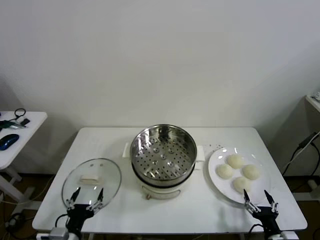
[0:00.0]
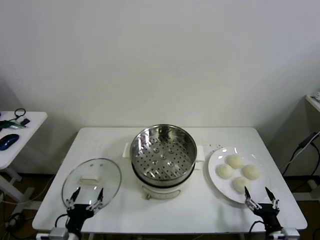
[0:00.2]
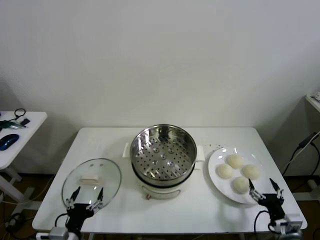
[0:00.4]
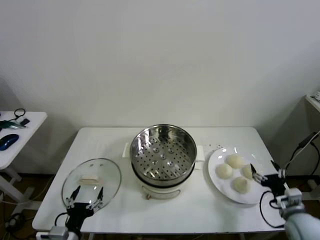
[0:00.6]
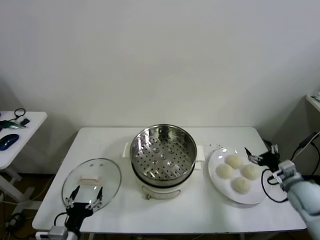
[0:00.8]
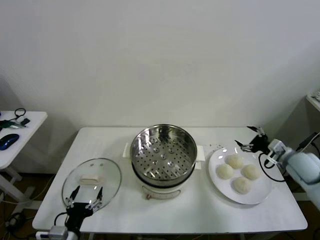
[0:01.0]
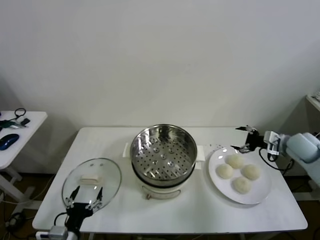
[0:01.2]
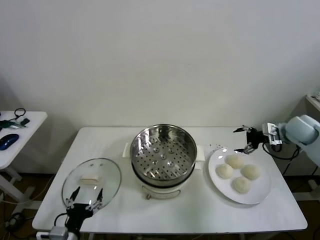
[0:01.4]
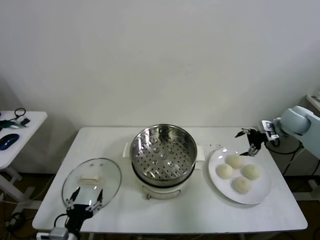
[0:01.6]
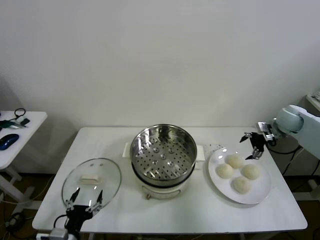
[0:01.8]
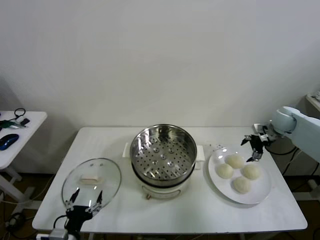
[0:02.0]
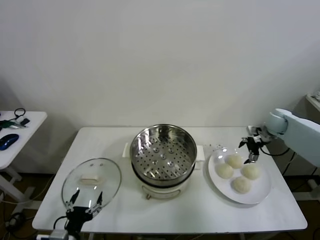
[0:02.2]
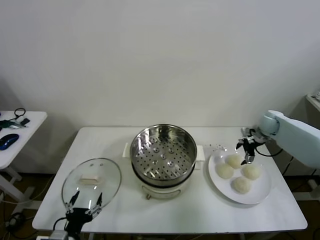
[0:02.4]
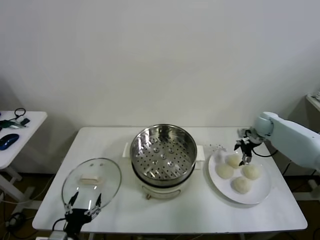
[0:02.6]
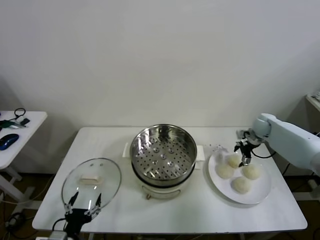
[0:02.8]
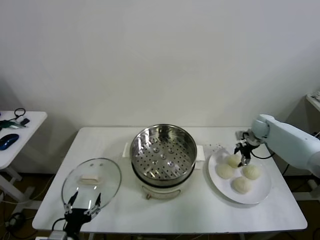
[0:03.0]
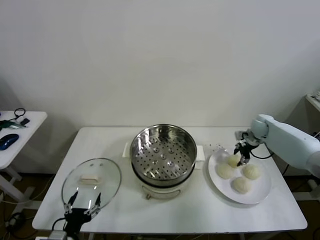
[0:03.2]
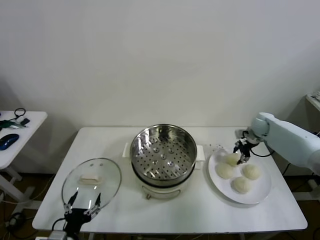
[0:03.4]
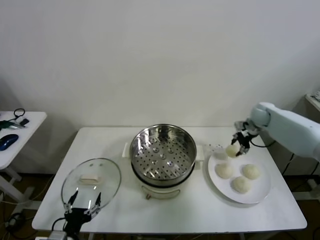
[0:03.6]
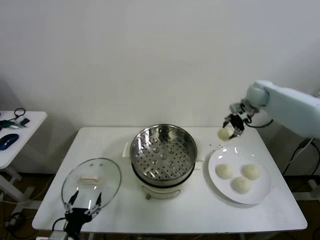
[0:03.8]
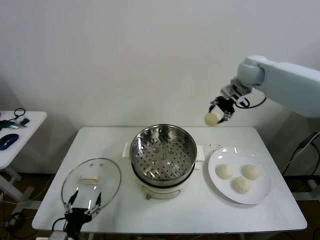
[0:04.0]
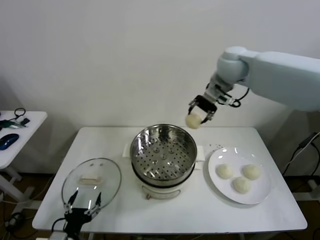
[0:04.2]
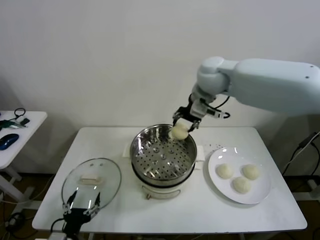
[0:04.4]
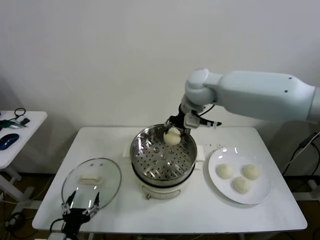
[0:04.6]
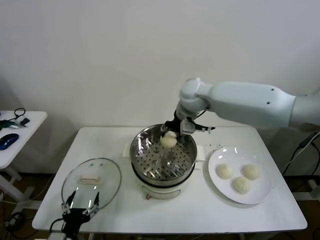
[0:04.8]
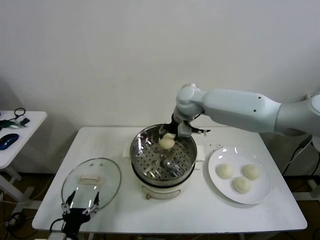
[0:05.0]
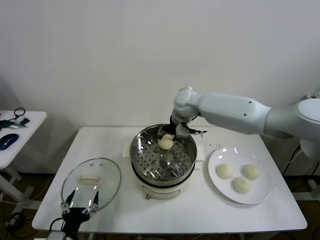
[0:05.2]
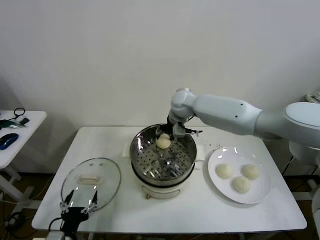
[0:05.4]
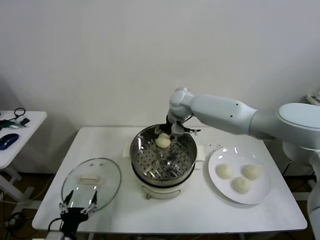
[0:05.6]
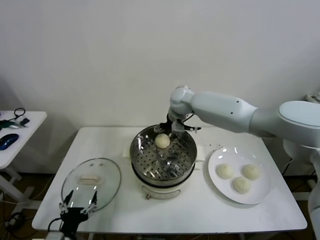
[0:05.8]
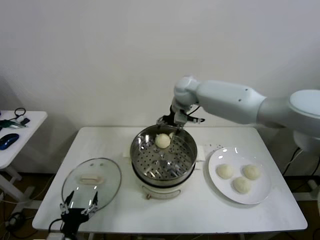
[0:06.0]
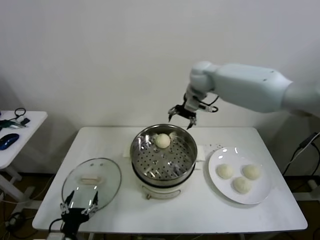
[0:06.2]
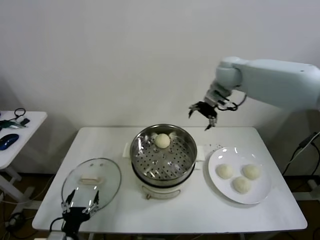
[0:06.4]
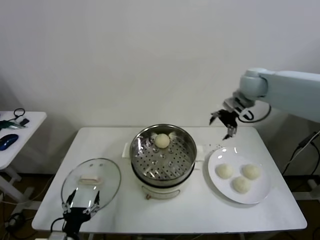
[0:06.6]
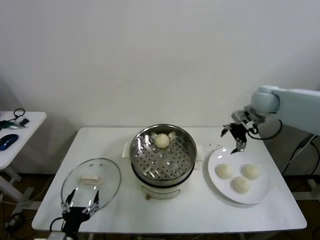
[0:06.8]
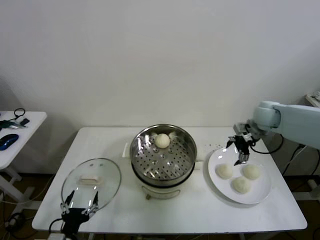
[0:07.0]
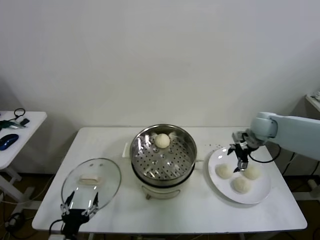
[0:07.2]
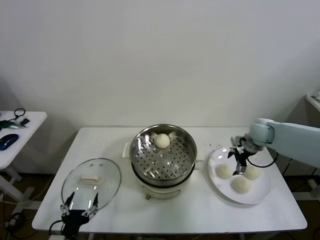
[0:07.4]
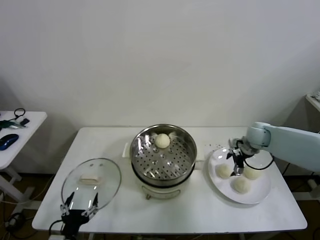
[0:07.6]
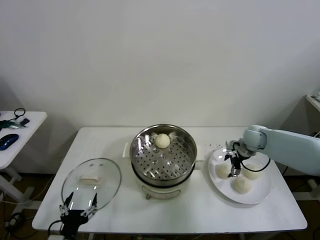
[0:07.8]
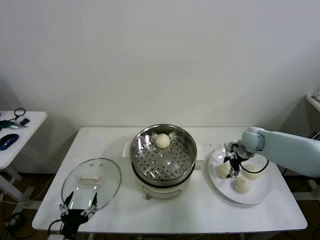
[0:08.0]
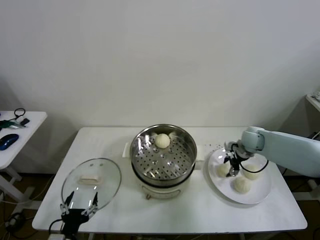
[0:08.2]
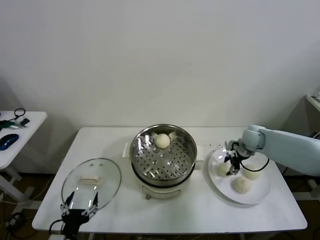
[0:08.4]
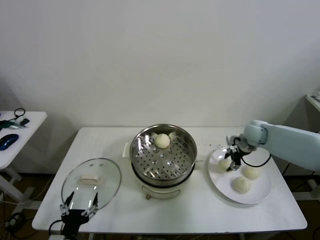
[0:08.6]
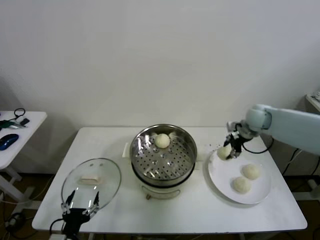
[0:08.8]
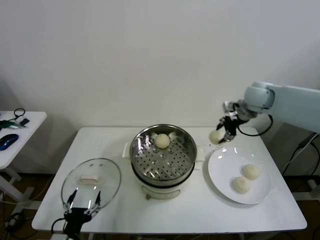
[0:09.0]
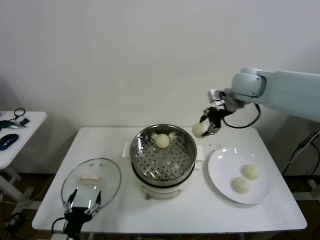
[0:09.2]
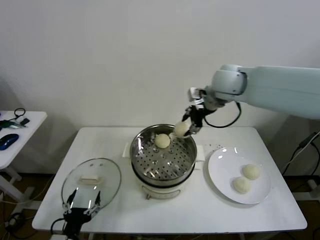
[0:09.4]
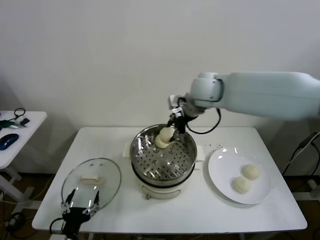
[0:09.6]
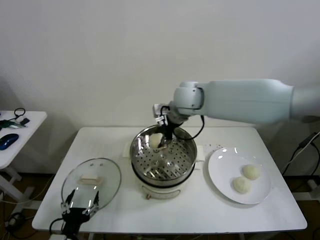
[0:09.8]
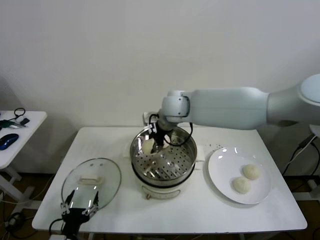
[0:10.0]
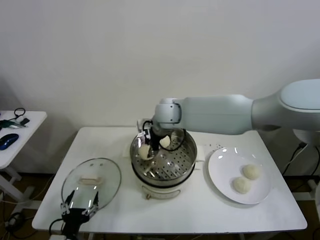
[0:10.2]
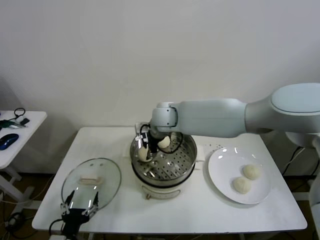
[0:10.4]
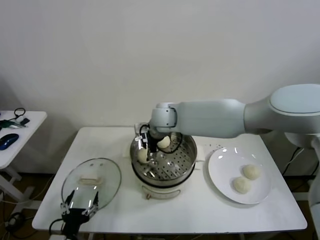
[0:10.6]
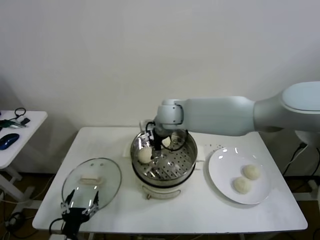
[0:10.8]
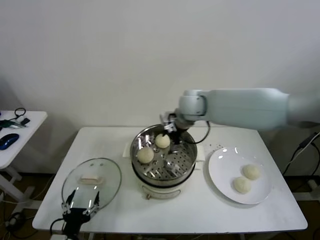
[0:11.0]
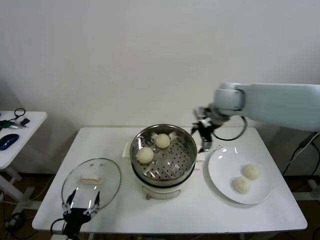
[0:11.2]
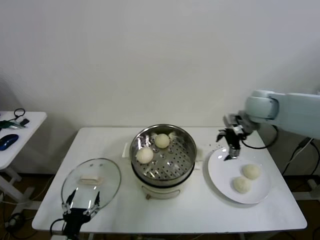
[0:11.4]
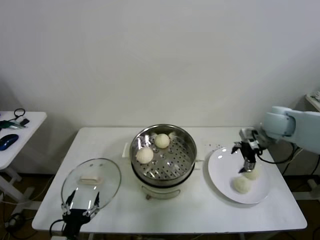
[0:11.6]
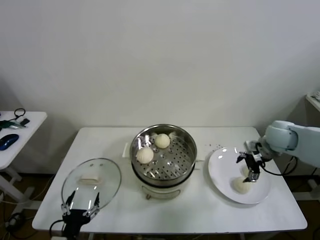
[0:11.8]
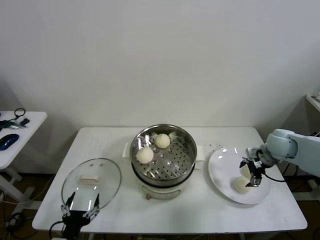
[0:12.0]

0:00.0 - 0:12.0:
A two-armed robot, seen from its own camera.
Step, 0:00.0 - 0:03.2: Grasp the baozi in the plate with right gripper.
Step, 0:03.4 - 0:05.6: Place the baozi on the steamer with right gripper.
Step, 0:05.8 - 0:08.2: Grasp the baozi in the plate with right gripper.
Step, 0:08.4 - 0:10.6: Place the baozi on the steamer with right gripper.
0:01.6 - 0:03.0: The right gripper moves downward and forward, about 10 cm, and closes.
0:03.0 - 0:04.4: The right gripper is displaced to the left and upward by approximately 40 cm.
0:04.4 - 0:06.0: The right gripper travels downward and forward by about 10 cm, and opens its fingers.
0:06.0 - 0:07.6: The right gripper is displaced to the right and downward by roughly 30 cm.
0:07.6 - 0:09.0: The right gripper moves upward, about 15 cm, and closes up.
0:09.0 - 0:10.4: The right gripper moves to the left, roughly 30 cm.
0:10.4 - 0:12.0: The right gripper moves to the right, about 40 cm, and opens up.

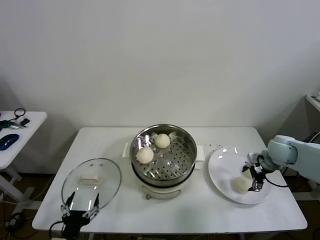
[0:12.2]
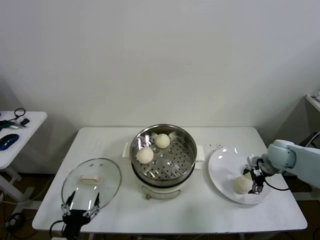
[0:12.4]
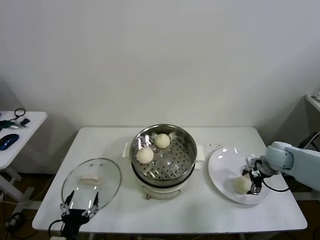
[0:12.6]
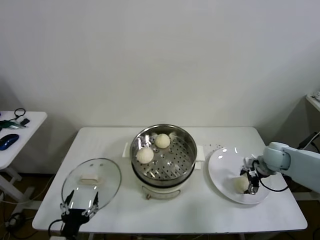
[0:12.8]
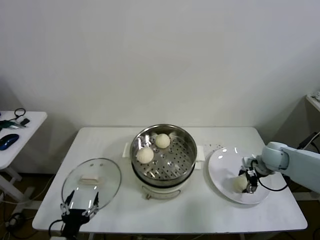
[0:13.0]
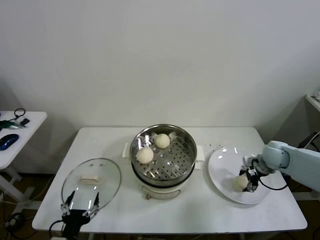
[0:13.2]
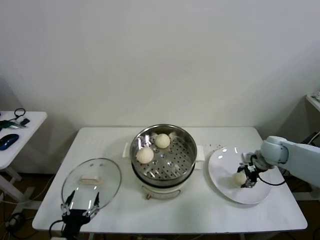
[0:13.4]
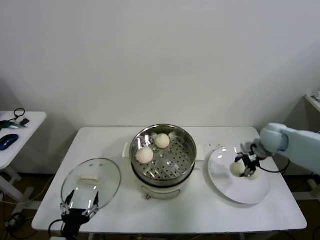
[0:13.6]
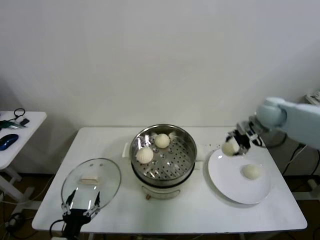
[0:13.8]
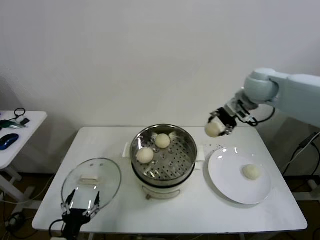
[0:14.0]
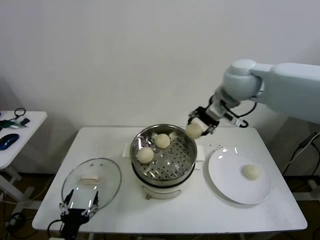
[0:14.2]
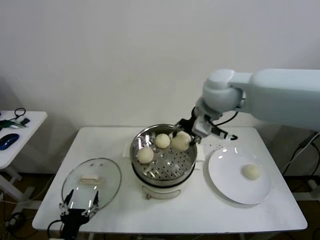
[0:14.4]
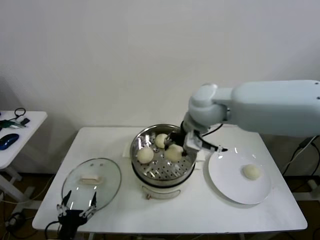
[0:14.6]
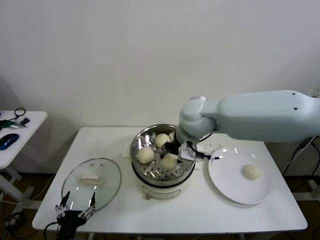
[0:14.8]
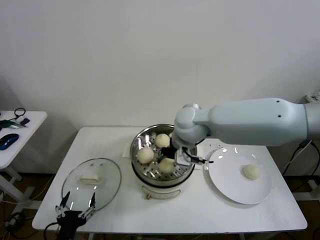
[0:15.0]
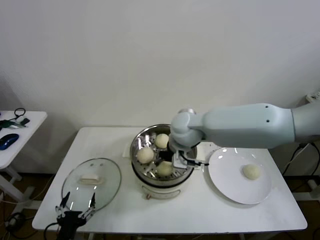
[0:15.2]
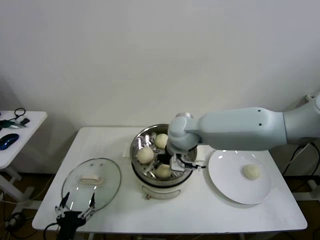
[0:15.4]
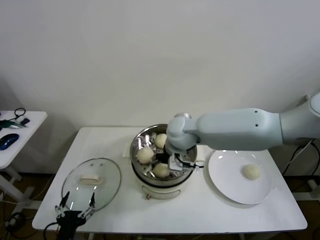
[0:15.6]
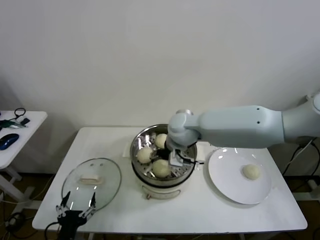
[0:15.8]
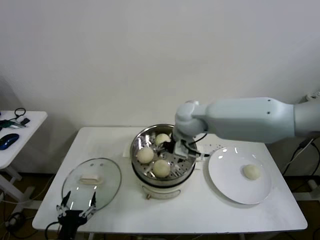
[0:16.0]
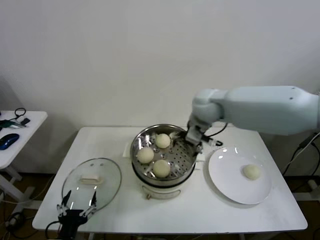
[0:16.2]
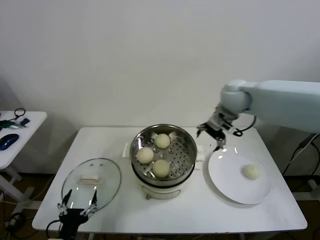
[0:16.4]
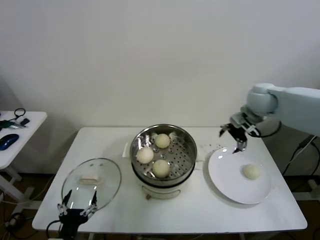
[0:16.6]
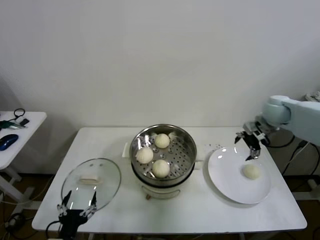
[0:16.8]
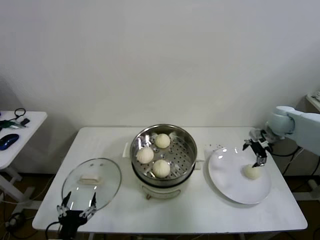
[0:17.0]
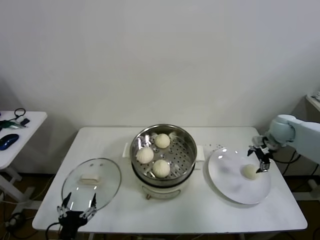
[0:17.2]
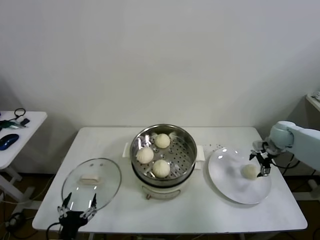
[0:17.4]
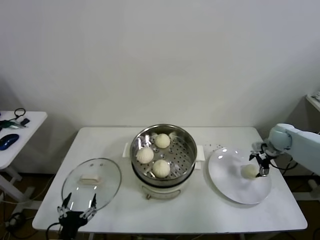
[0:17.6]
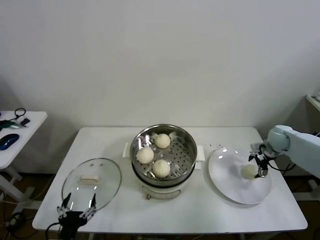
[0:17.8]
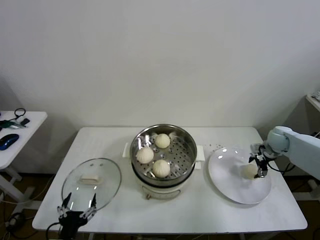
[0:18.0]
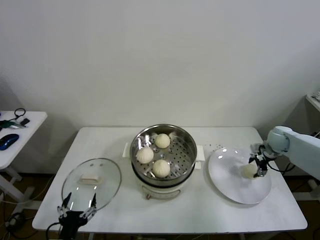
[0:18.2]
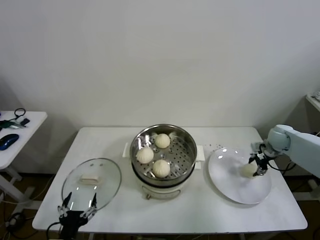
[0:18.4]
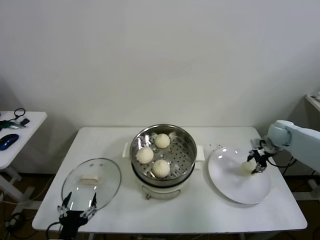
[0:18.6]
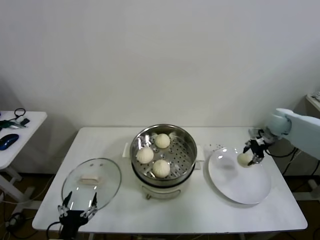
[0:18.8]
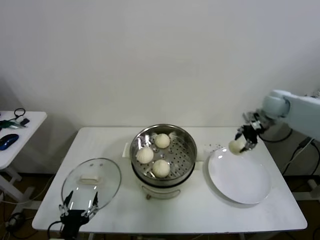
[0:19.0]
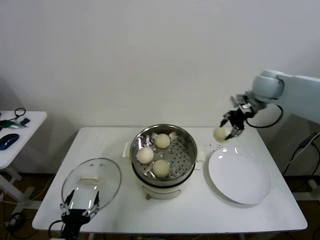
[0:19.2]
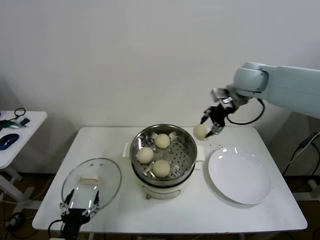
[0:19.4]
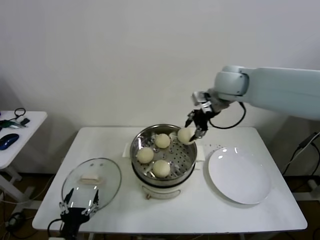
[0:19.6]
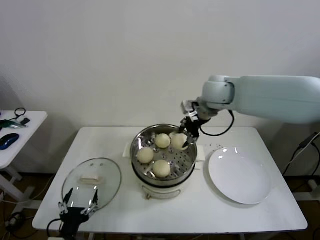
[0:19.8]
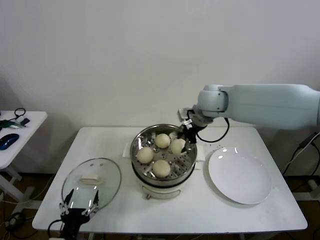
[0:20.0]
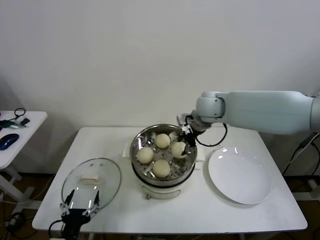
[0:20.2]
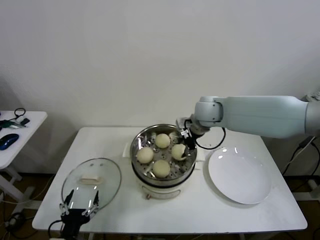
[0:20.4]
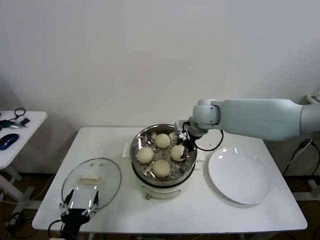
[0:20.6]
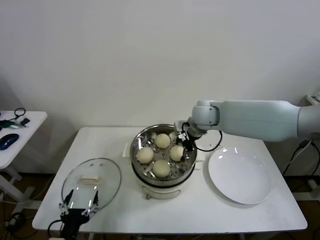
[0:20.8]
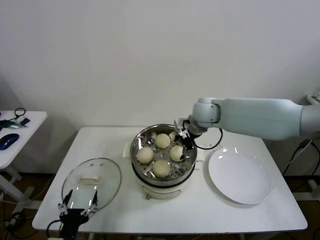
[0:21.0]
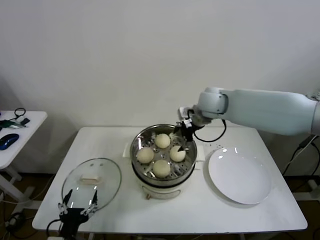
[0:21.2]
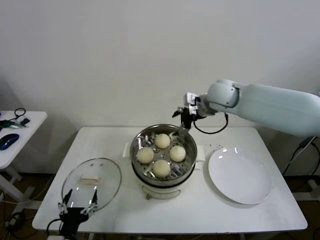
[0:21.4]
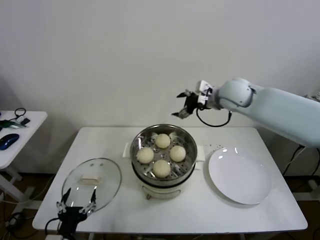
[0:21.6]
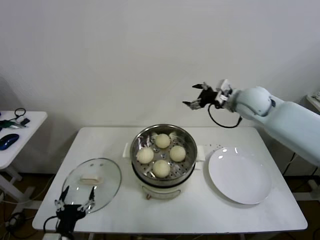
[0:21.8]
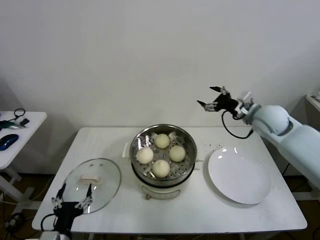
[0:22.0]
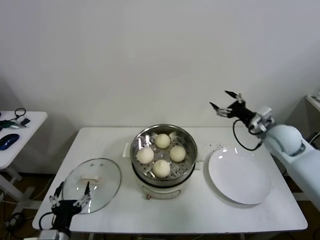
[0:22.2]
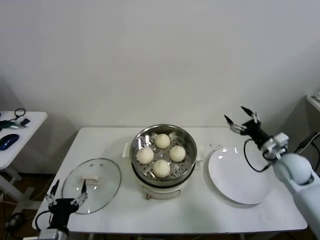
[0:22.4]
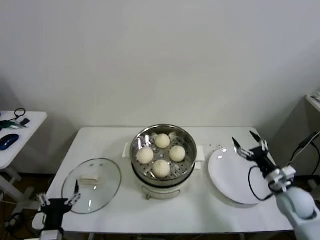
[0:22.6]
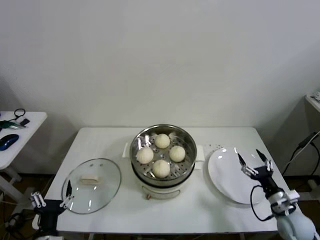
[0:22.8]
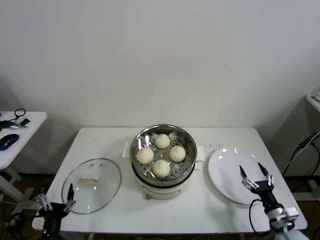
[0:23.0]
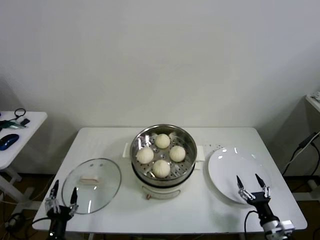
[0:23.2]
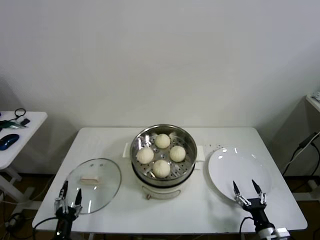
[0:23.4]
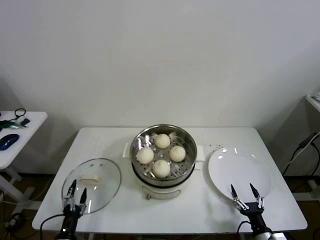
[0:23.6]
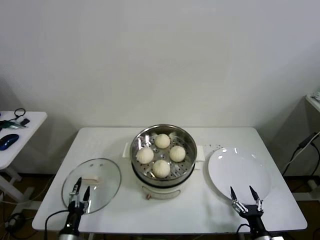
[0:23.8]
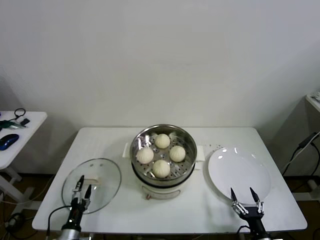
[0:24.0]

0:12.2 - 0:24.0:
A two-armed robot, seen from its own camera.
Step, 0:13.2 - 0:15.6: Place the baozi on the steamer with right gripper.
Step, 0:15.8 - 0:18.2: Grasp the baozi in the plate with right gripper.
Step, 0:18.4 - 0:20.8: Place the baozi on the steamer with right gripper.
0:12.2 - 0:13.6: The right gripper closes.
0:13.6 - 0:15.2: The right gripper heads to the left, covering some 30 cm.
0:15.2 - 0:16.6: The right gripper moves to the right, approximately 25 cm, and opens.
0:16.6 - 0:18.2: The right gripper heads downward and to the right, covering about 25 cm, and closes up.
0:18.2 - 0:19.6: The right gripper heads to the left and upward, covering approximately 35 cm, and closes its fingers.
0:19.6 - 0:21.0: The right gripper travels downward and to the left by roughly 15 cm, and opens its fingers.
0:21.0 - 0:22.6: The right gripper heads to the right, downward and backward, covering some 40 cm.
0:22.6 - 0:24.0: The left gripper shifts some 15 cm downward. Meanwhile the right gripper shifts about 25 cm backward, downward and to the left.
